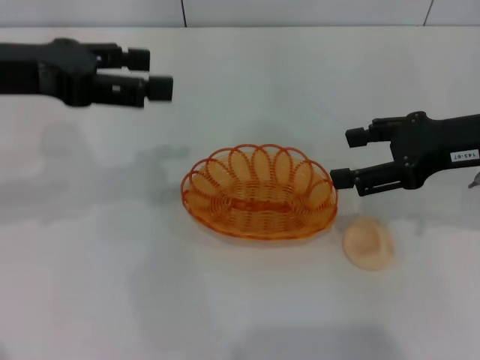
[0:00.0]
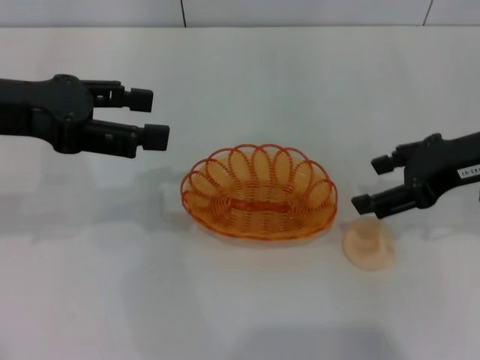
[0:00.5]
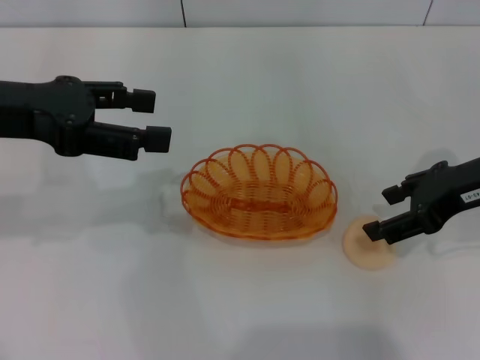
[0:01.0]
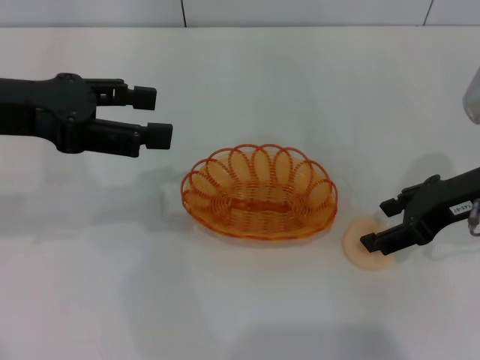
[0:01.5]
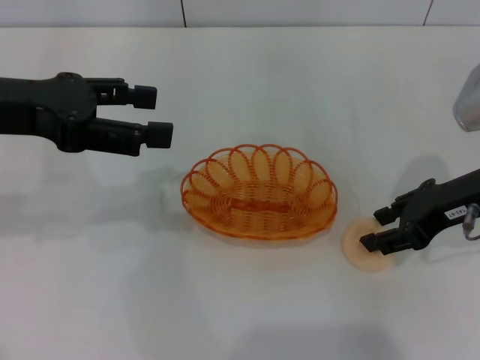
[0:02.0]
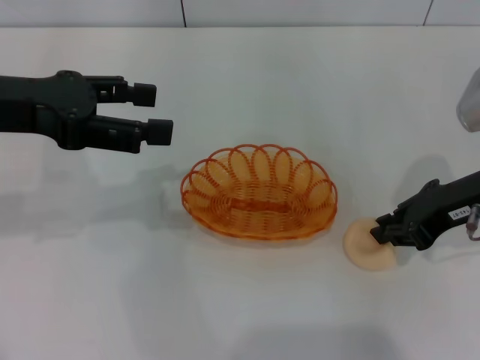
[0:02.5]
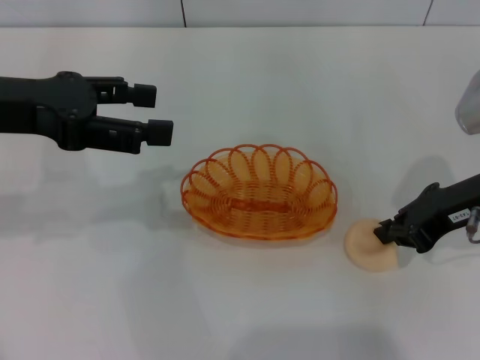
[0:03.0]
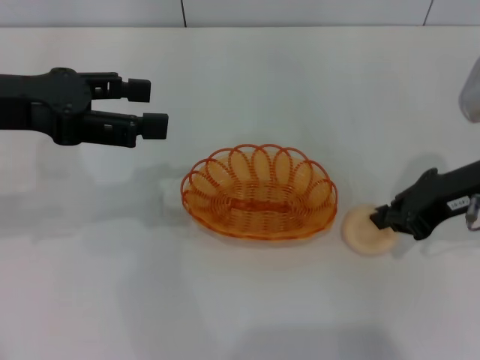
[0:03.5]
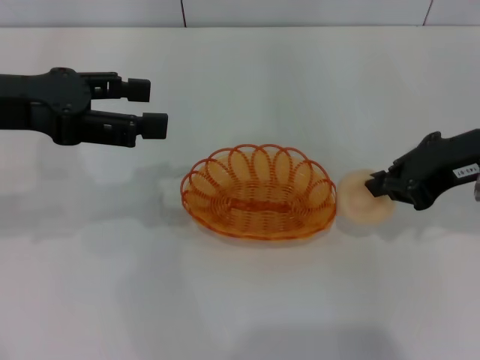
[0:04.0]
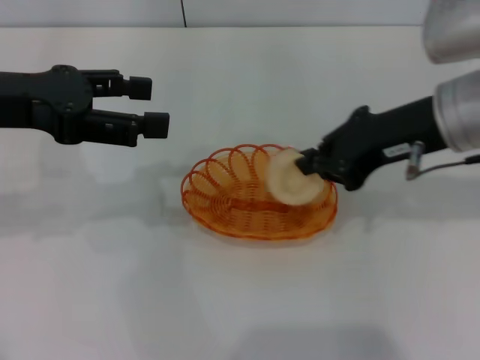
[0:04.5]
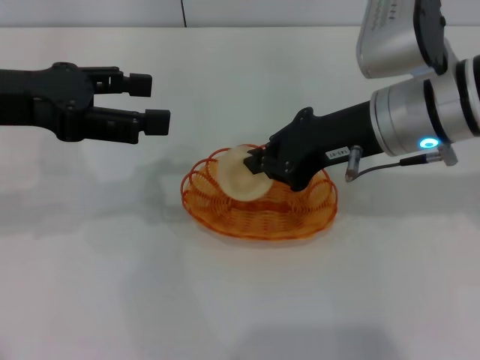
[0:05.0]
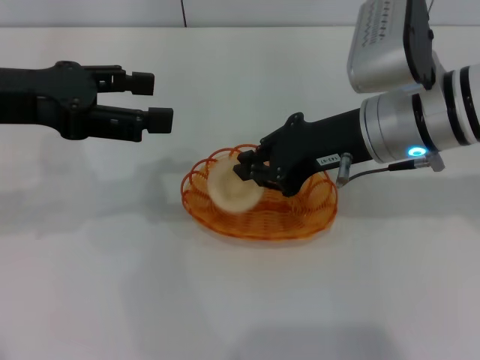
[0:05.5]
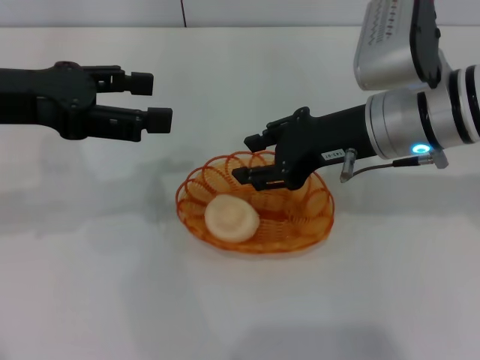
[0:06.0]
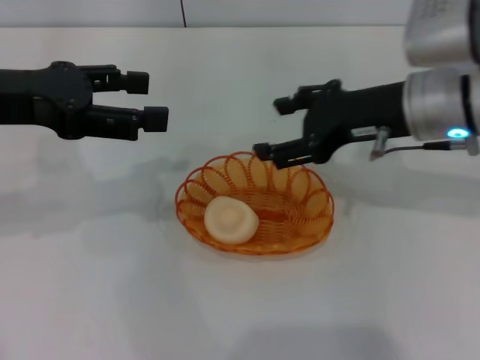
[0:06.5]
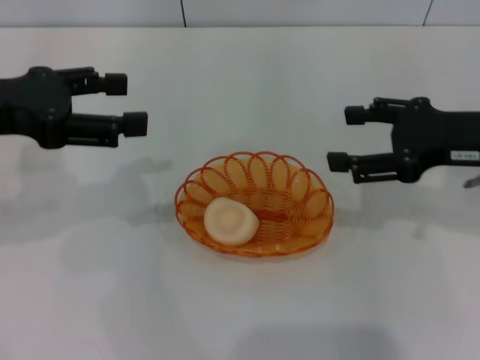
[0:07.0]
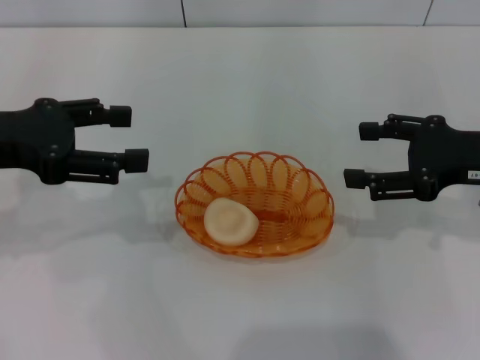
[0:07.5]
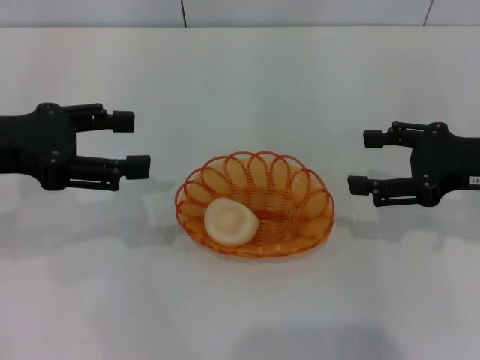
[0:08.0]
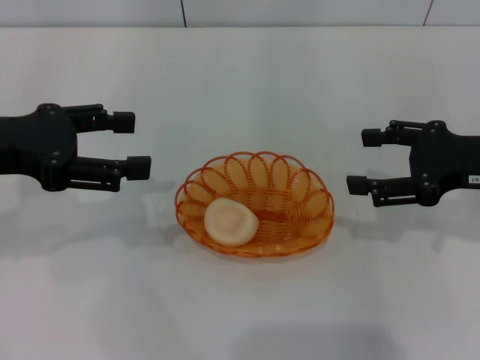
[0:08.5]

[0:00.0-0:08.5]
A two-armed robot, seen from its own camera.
Step, 0:00.0 to 0:03.5: Pick up the egg yolk pastry with the right gripper.
Step, 0:04.0 to 0:06.0: Place the egg yolk pastry into the basket with the right gripper.
0:02.0 to 0:04.0: The right gripper closes.
0:04.0 to 0:06.5: The right gripper heads to the left, covering about 5 cm, and opens its fingers.
0:06.5 to 0:08.5: The right gripper travels to the right by about 10 cm.

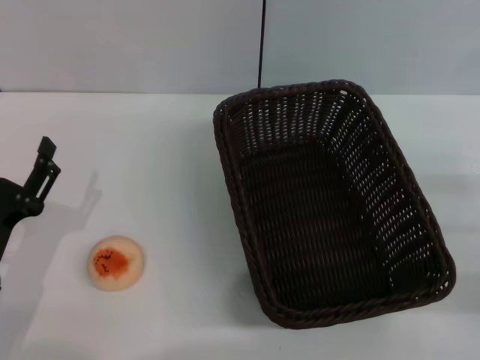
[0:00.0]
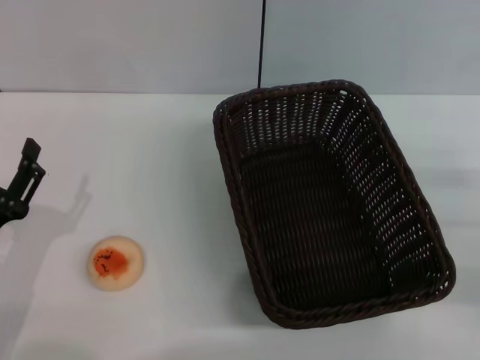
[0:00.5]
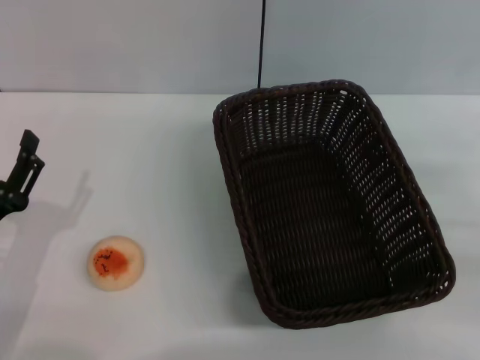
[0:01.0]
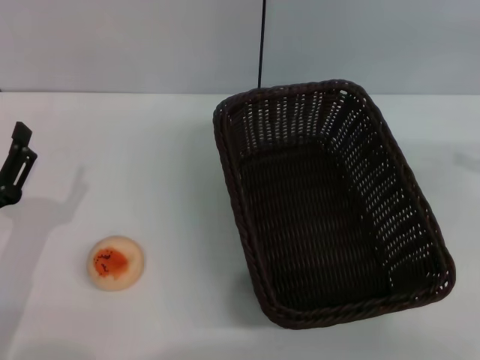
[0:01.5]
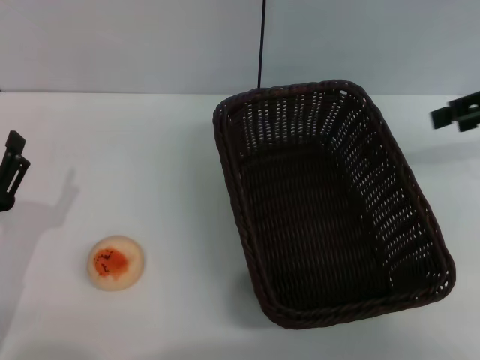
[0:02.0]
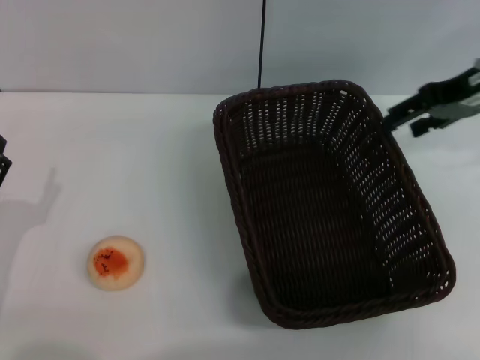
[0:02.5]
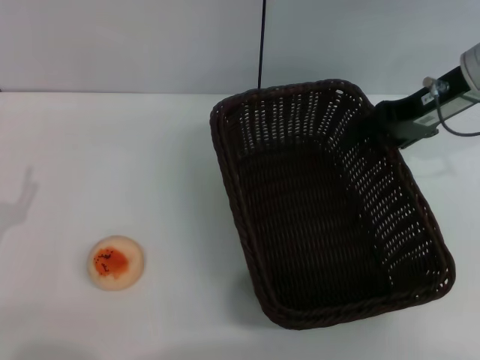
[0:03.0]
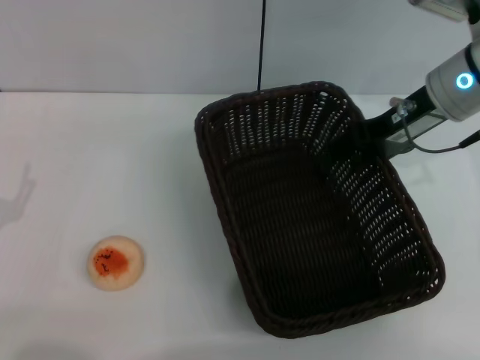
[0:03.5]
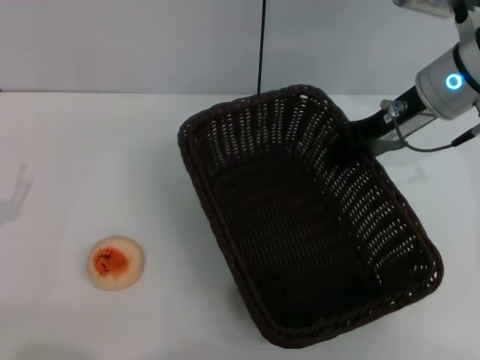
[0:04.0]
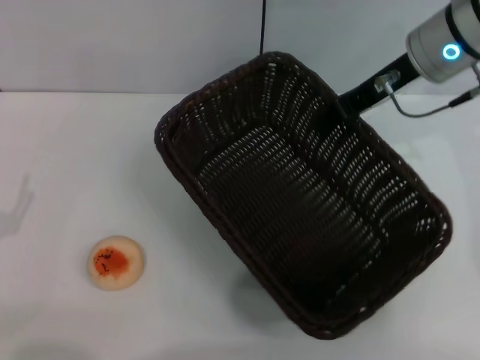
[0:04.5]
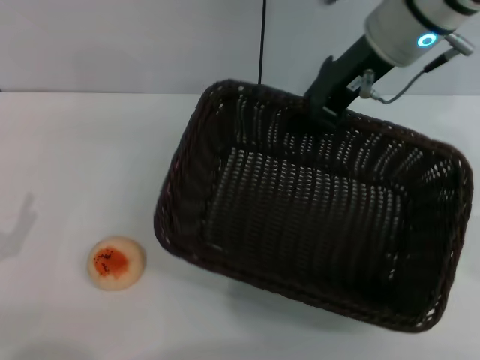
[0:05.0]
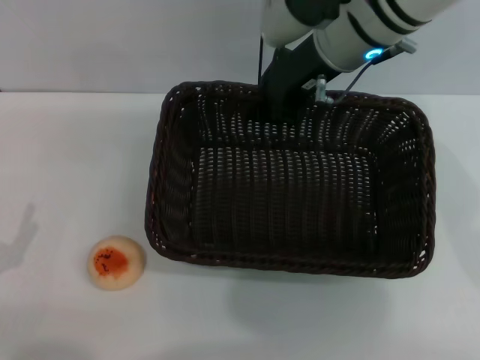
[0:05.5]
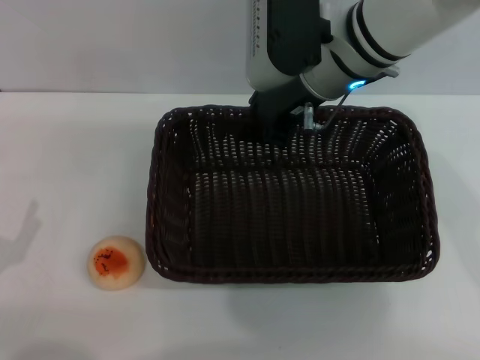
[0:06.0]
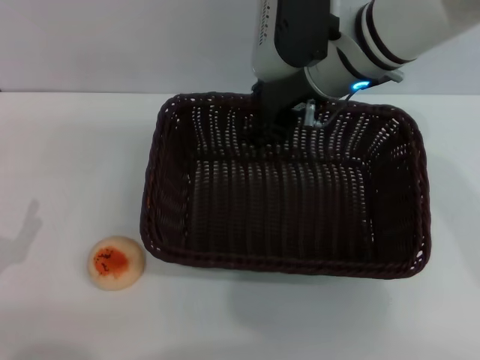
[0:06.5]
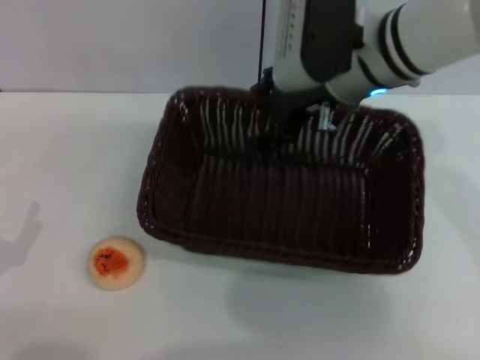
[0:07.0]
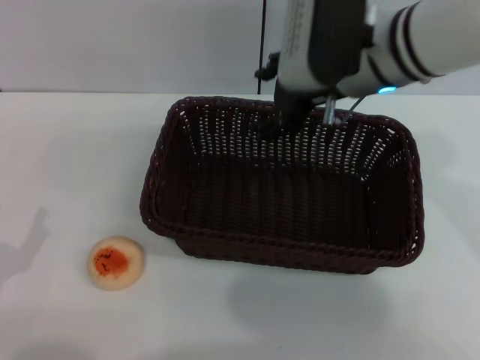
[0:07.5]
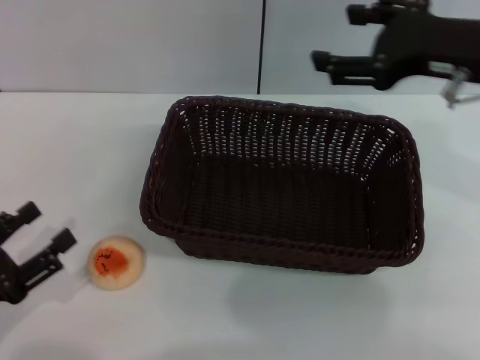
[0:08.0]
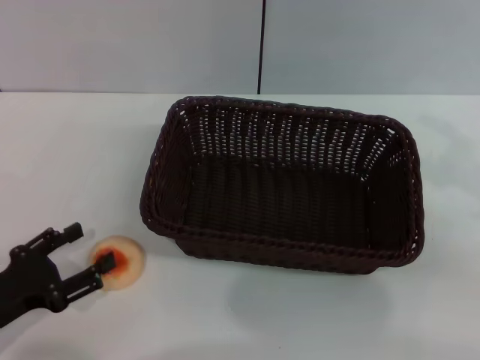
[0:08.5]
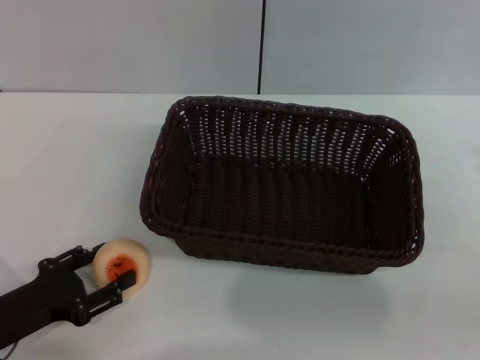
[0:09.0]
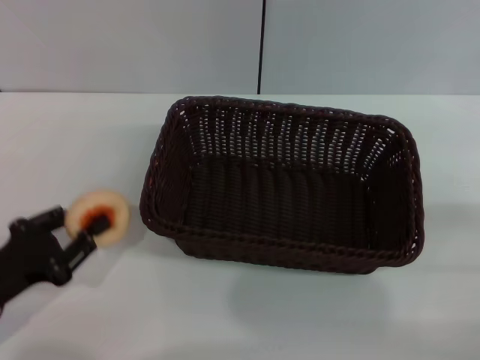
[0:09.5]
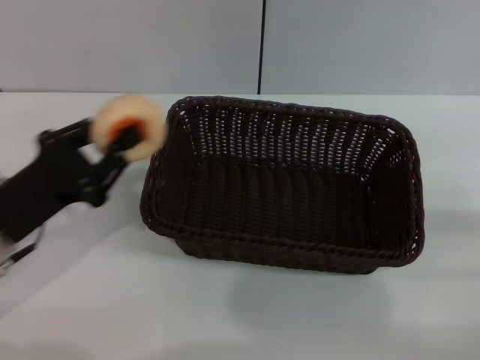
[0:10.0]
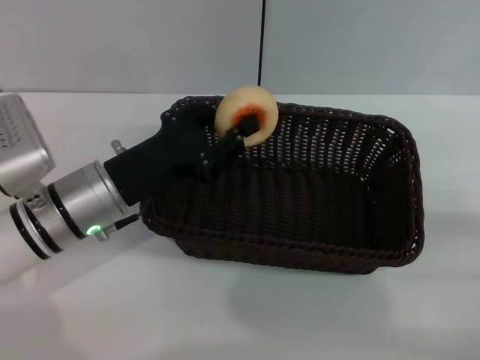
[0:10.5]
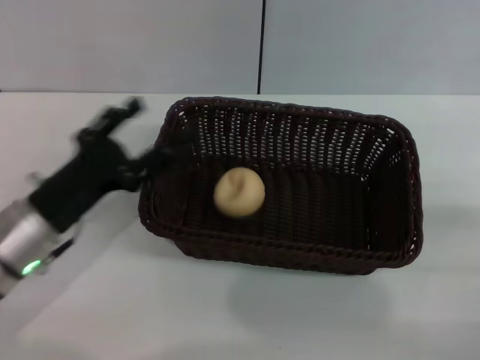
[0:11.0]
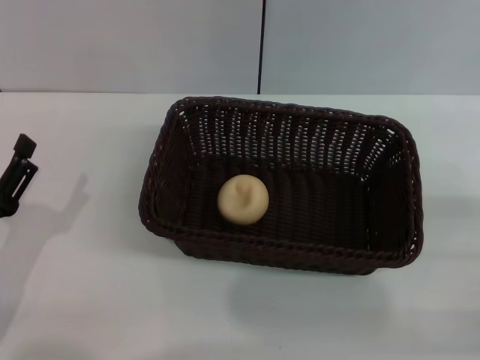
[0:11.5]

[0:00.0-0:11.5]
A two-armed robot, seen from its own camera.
Step, 0:00.0 to 0:07.5: Move the basket to the center of view with the right gripper.
Step, 0:08.0 to 0:09.5: Pick up the egg yolk pastry with the left gripper.
Step, 0:10.0 to 0:10.5: Place the egg yolk pastry into the basket with the left gripper.
0:00.0 to 0:02.0: The right gripper is displaced upward and forward by some 25 cm.
0:02.0 to 0:04.0: The right gripper heads to the left and downward, covering about 15 cm, and closes.
0:04.0 to 0:06.0: The right gripper is displaced to the left by about 10 cm, and closes up.
0:06.0 to 0:07.5: The right gripper opens its fingers.
0:07.5 to 0:09.5: The right gripper heads to the right, backward and downward, covering approximately 35 cm. Meanwhile the left gripper changes place by some 5 cm, and closes.
0:09.5 to 0:11.5: The left gripper travels to the right and back again, roughly 10 cm each way, and opens up.
